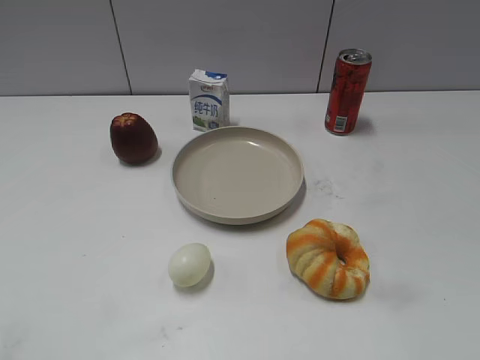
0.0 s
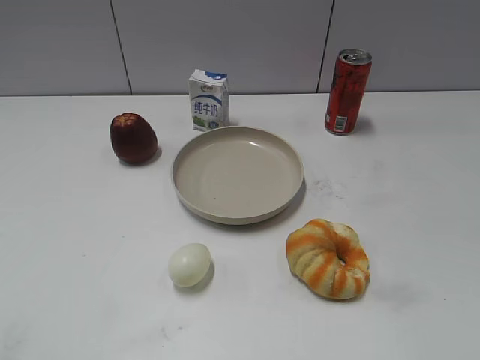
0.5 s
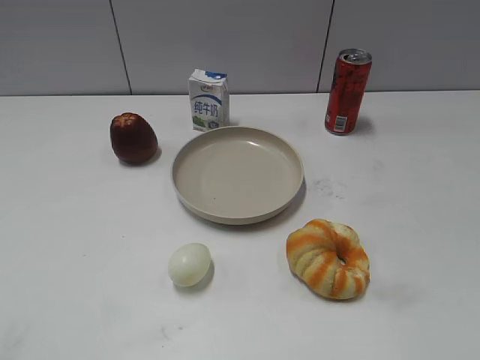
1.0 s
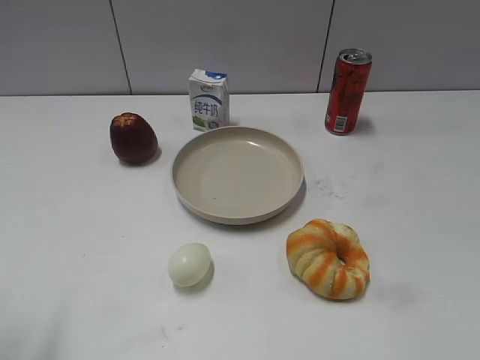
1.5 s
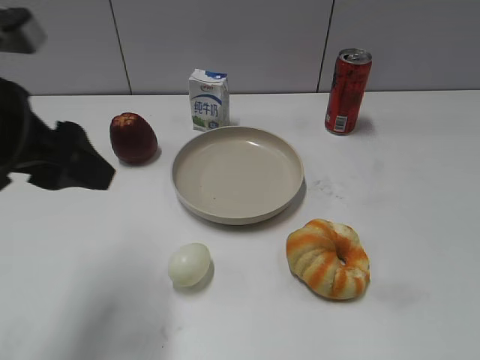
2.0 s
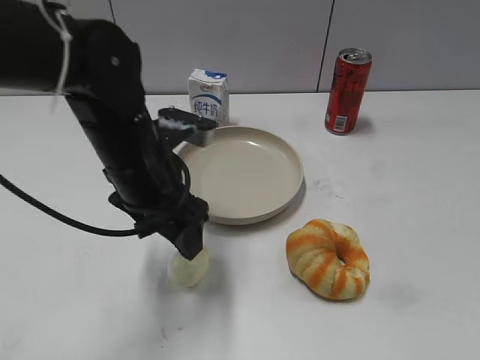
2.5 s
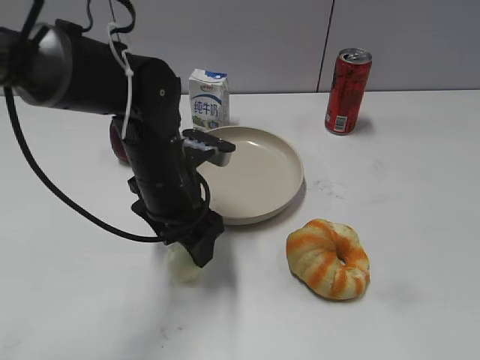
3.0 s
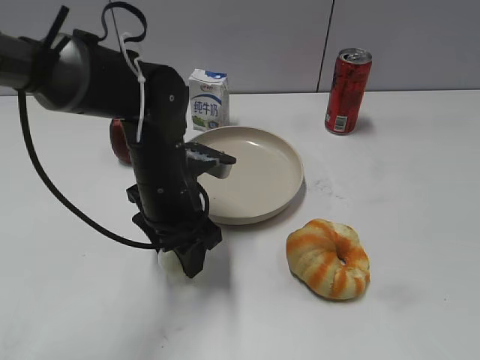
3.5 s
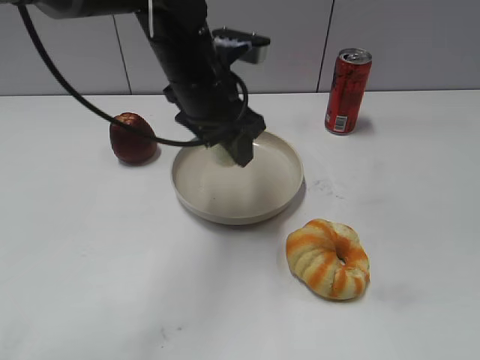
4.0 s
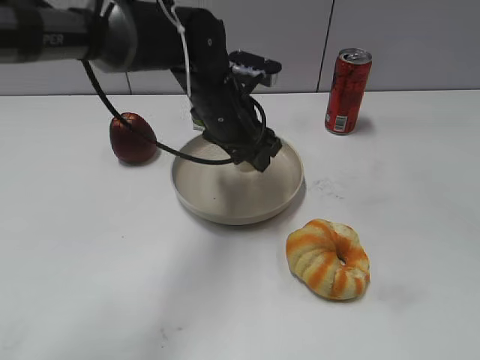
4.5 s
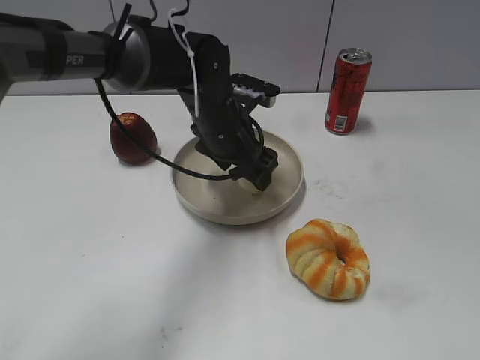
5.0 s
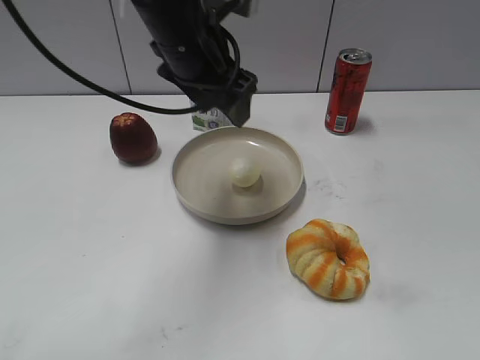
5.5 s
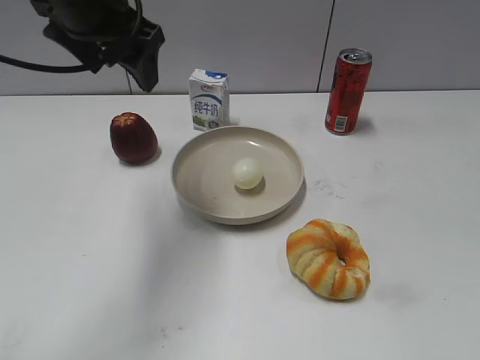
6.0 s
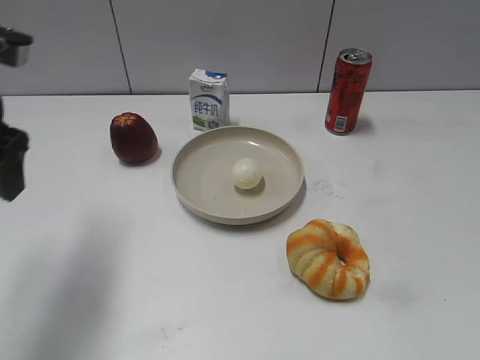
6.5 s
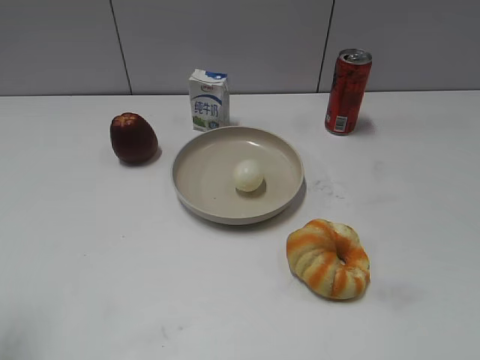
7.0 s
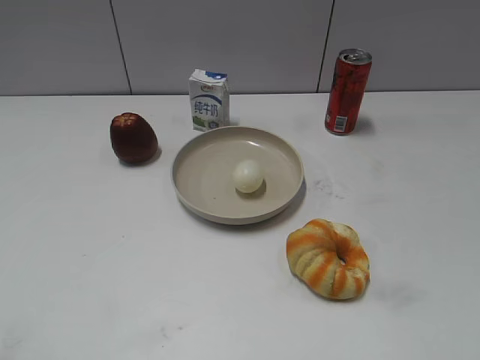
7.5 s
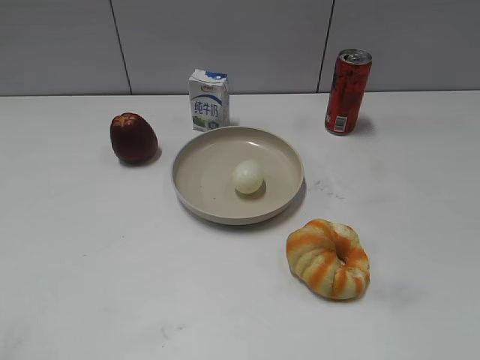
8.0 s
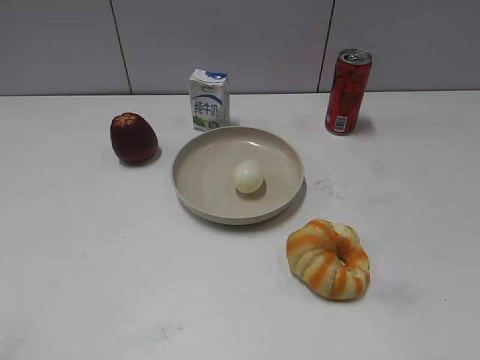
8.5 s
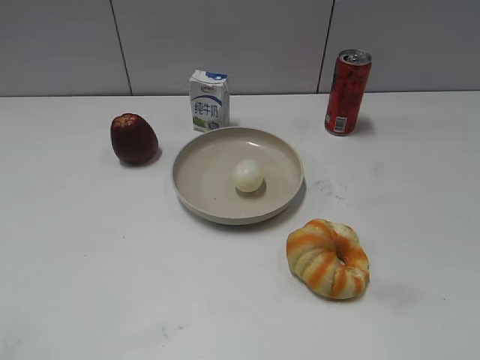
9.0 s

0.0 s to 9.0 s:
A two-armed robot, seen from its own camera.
Step, 1.0 to 3.5 s: Grasp the egg with left gripper.
Step, 4.0 to 5.0 s: Place the egg on the plate with left gripper.
2.0 to 4.5 s: The left gripper moves to the right, forward and downward, approximately 30 cm, and closes.
4.5 to 7.0 s: The left gripper travels to the left and backward by about 35 cm, and opens its fingers.
